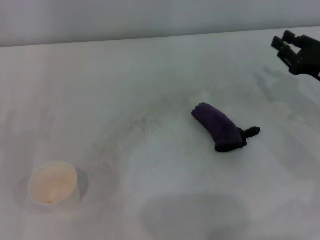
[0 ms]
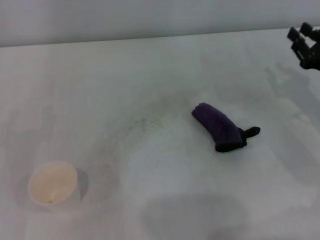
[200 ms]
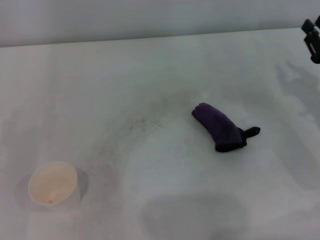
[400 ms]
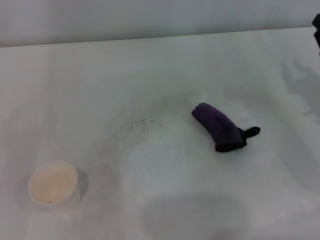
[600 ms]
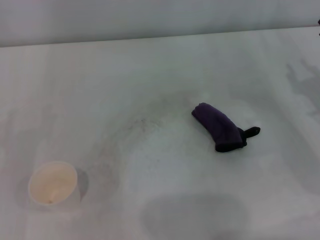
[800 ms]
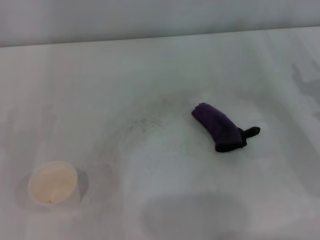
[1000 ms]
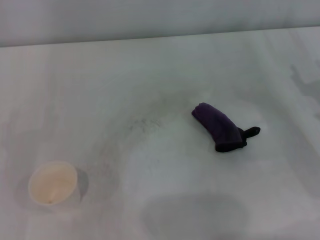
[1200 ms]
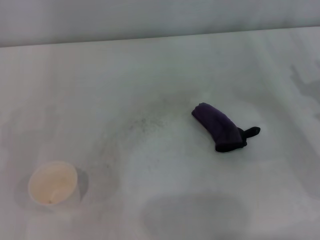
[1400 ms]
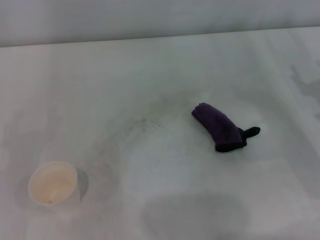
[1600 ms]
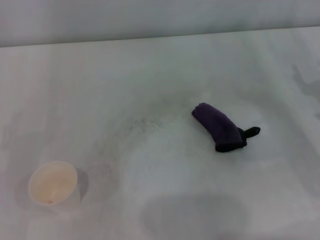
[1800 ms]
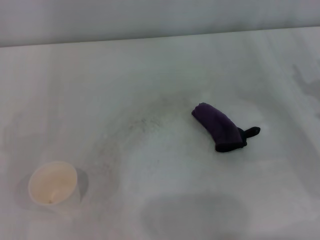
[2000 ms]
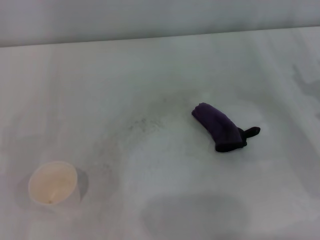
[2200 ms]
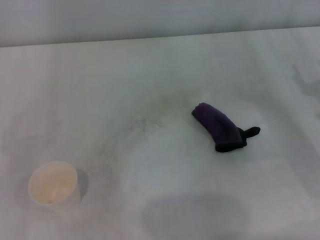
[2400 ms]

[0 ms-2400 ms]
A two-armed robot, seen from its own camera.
0 ms to 1200 ms: The right gripper opens its fingers.
1200 ms to 2400 ms: The two grippers keep their place.
